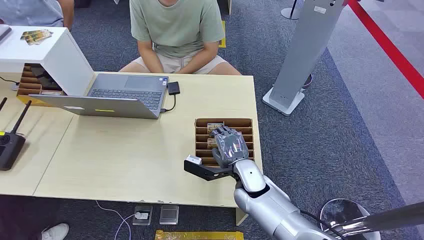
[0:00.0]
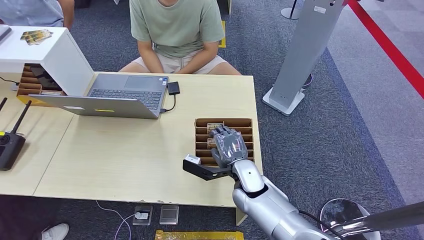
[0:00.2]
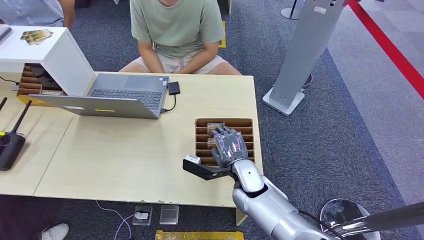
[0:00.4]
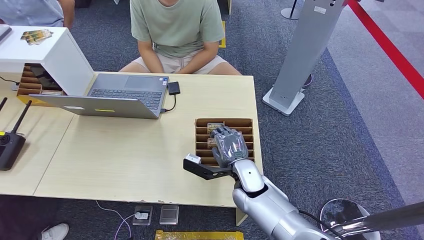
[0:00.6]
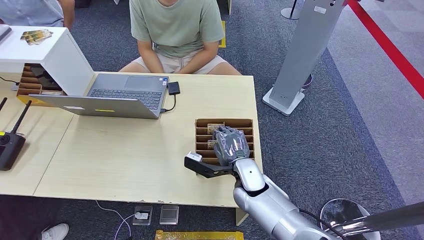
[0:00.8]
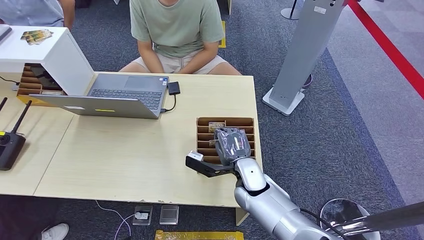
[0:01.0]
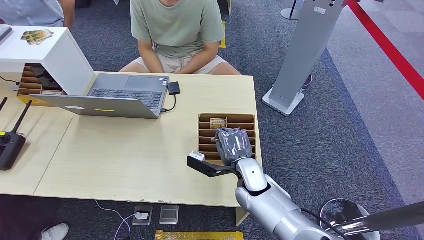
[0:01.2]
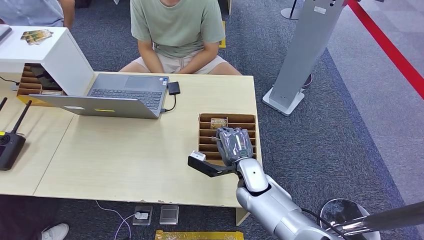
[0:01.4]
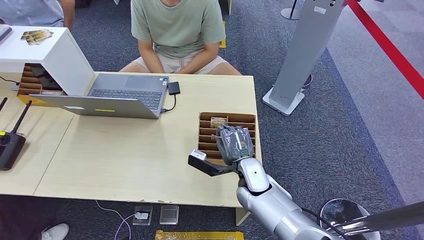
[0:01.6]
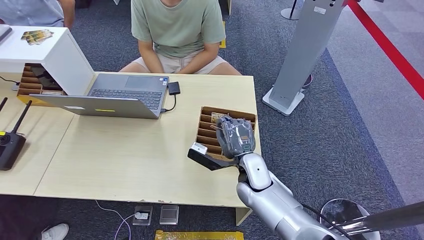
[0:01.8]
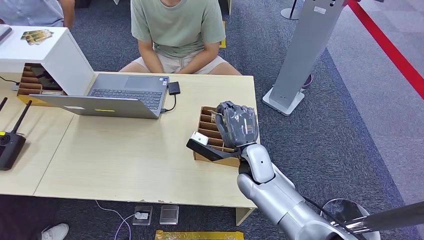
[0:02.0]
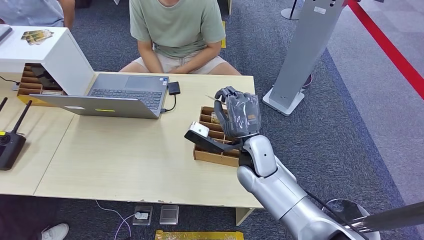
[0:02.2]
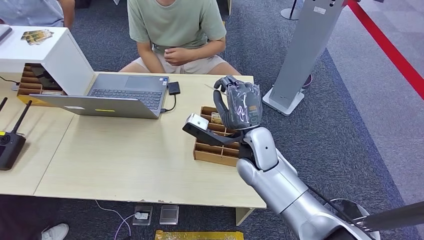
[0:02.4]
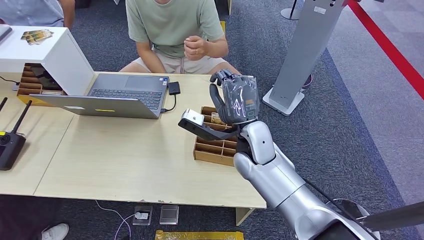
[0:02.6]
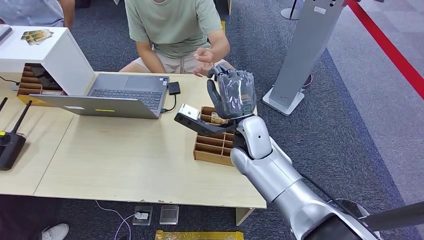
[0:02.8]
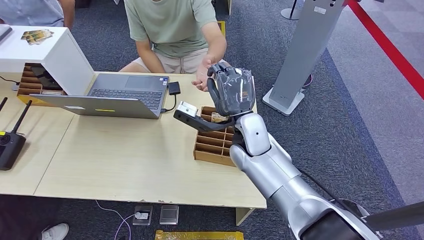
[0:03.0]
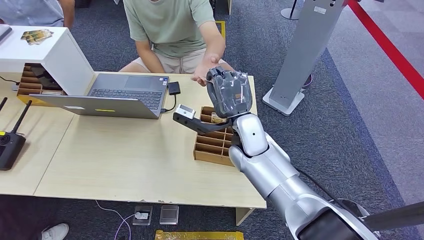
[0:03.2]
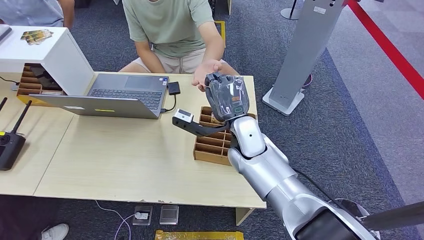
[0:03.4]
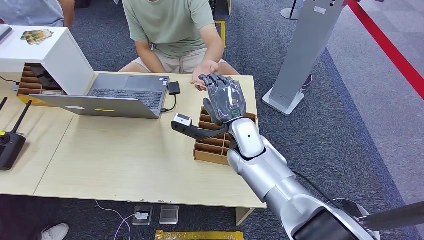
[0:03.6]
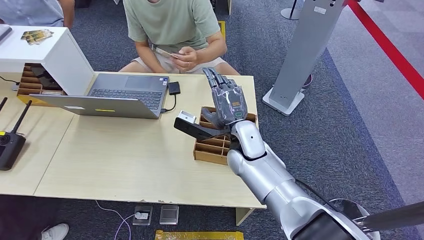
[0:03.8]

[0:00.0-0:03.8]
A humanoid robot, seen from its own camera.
Step, 0:00.0 to 0:02.0: Pick up the key card from the card box.
Step, 0:02.6 to 0:03.8: Hand the key card to the target.
0:01.2 to 0:02.6: The right hand travels upward by some 10 cm.
0:02.6 to 0:03.8: The hands move only a little.

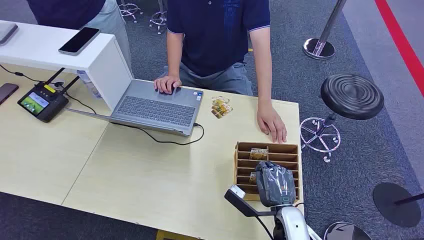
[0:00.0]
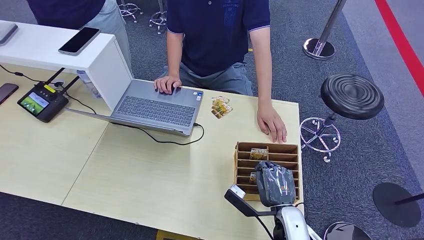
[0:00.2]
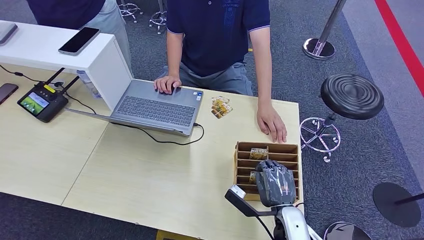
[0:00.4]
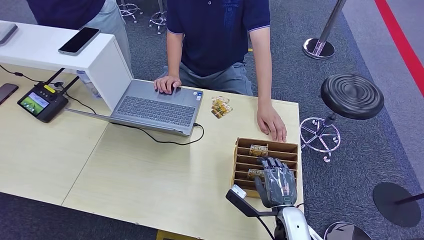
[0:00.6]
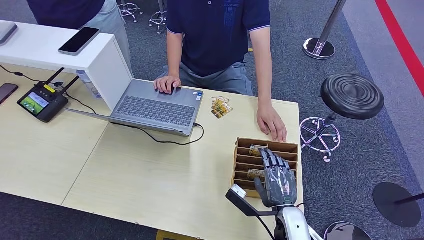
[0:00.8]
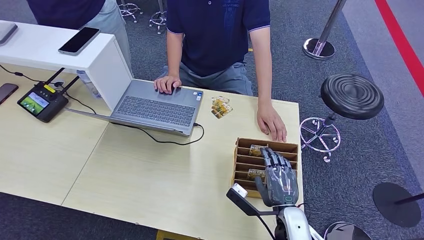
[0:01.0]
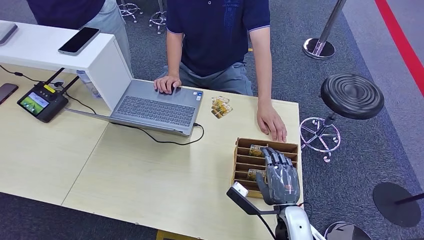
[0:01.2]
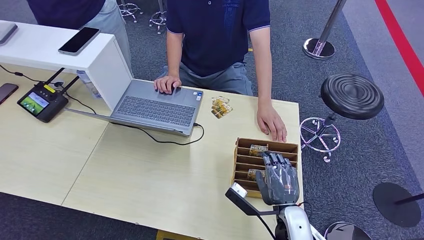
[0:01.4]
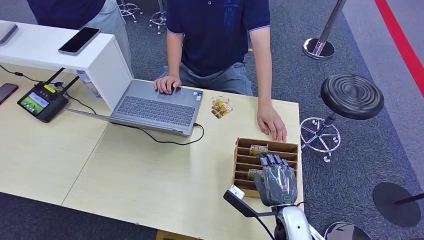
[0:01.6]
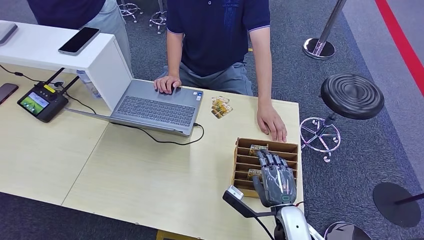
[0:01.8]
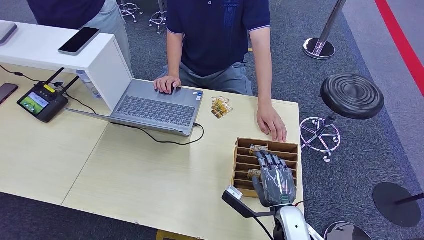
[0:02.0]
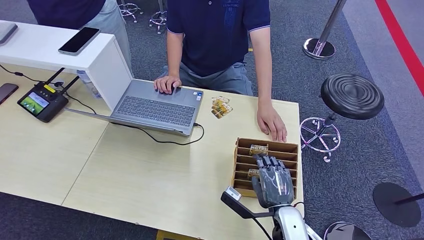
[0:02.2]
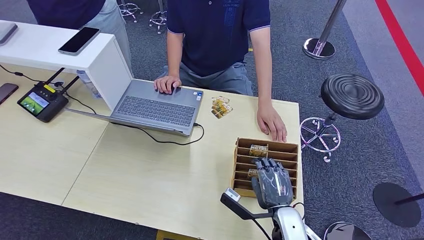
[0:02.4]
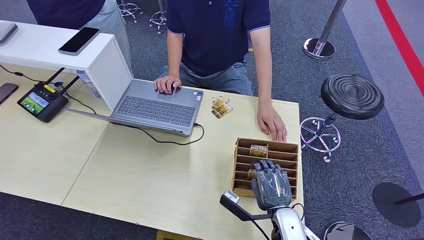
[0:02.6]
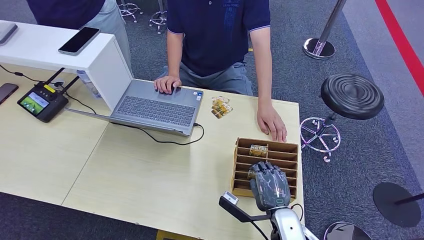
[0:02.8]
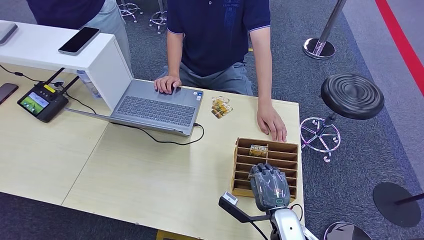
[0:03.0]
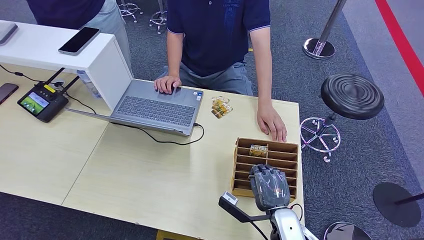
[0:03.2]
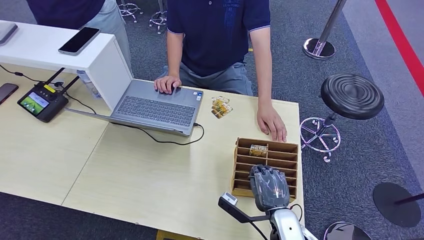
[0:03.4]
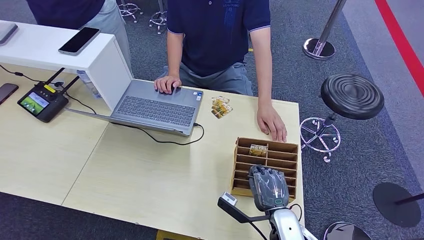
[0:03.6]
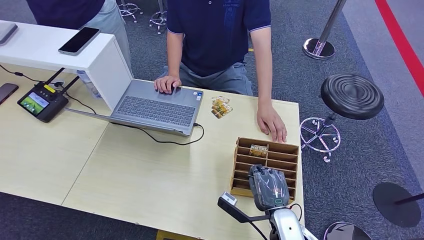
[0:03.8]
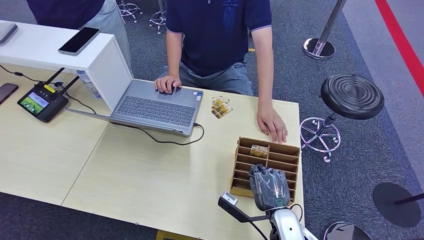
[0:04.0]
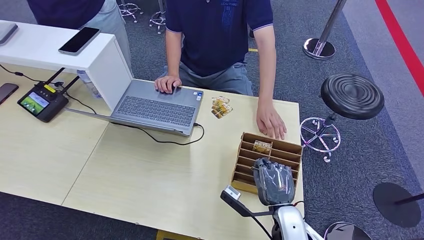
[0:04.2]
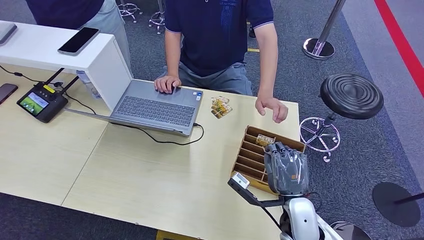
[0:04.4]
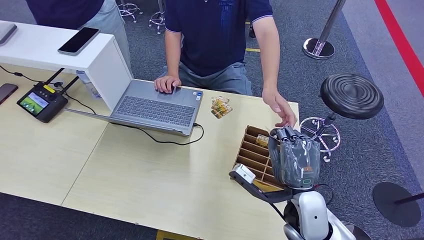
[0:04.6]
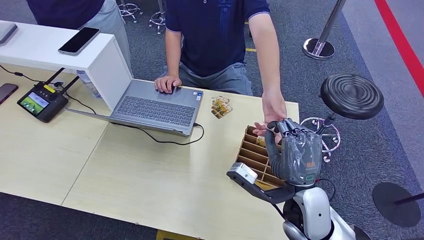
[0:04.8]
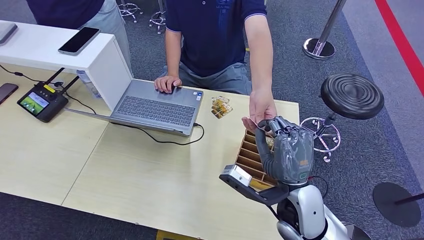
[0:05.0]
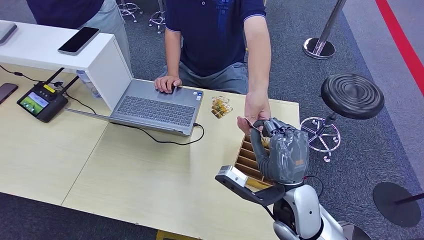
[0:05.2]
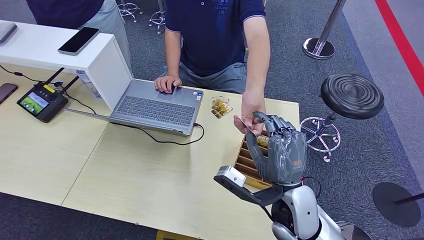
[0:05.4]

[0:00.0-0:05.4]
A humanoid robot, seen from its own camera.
Step, 0:00.0 to 0:04.6: Pick up the key card from the card box.
Step, 0:04.8 to 0:05.4: Hand the key card to the target.
0:01.4 to 0:04.0: There are only small adjustments of the hands.
0:04.0 to 0:05.4: The right hand heads upward, covering approximately 15 cm.
